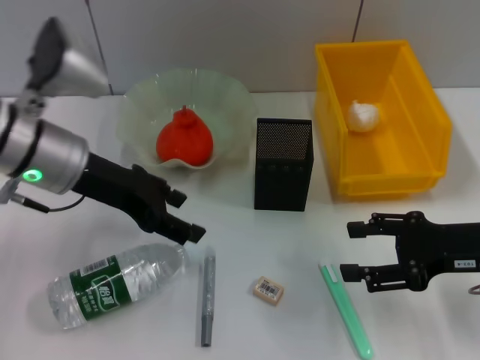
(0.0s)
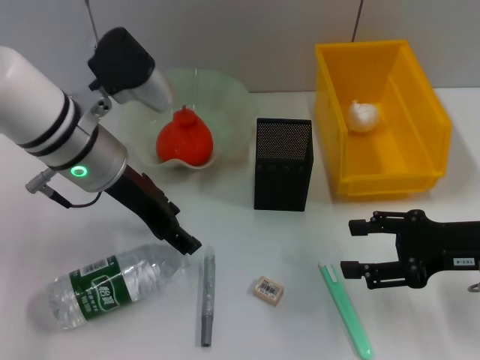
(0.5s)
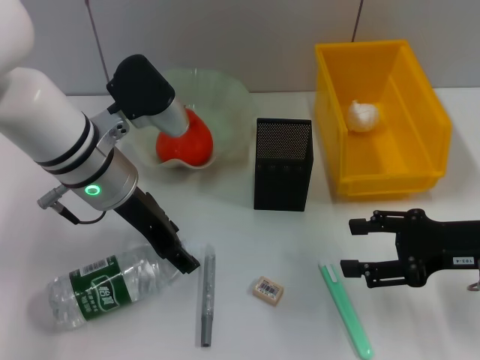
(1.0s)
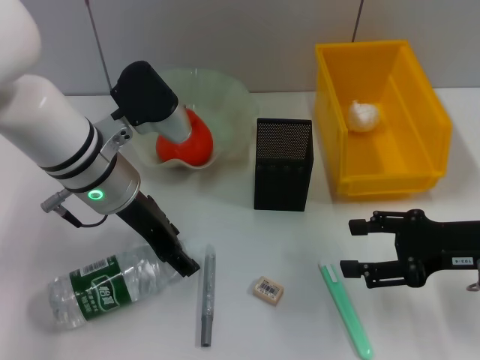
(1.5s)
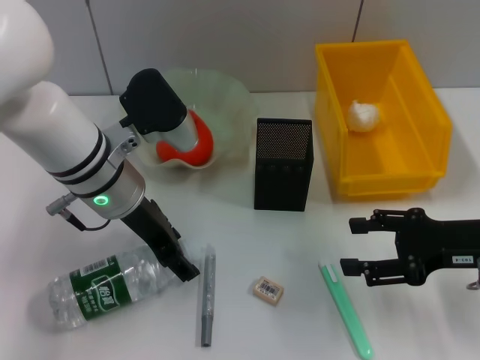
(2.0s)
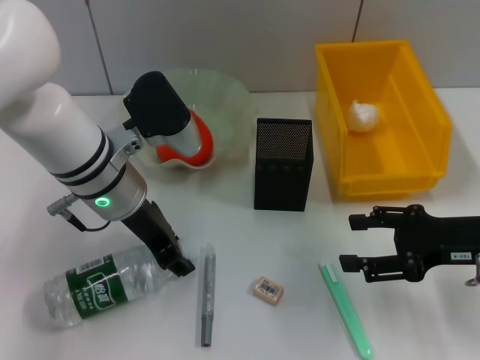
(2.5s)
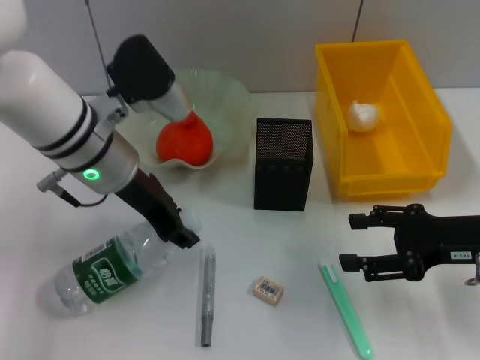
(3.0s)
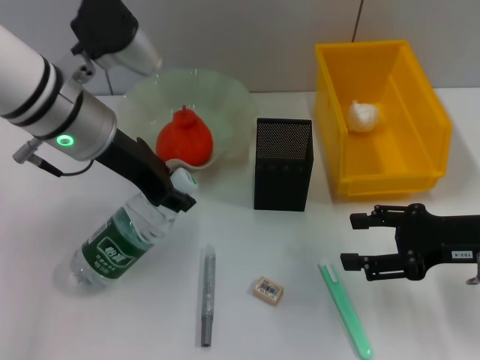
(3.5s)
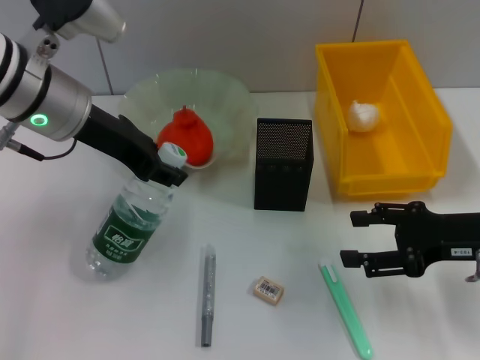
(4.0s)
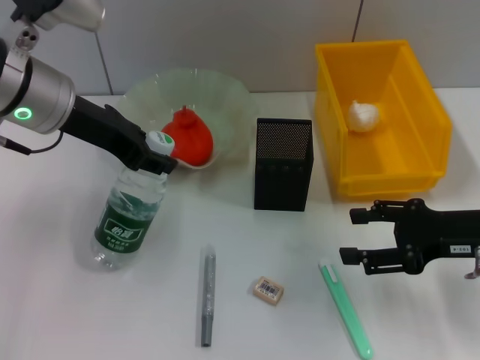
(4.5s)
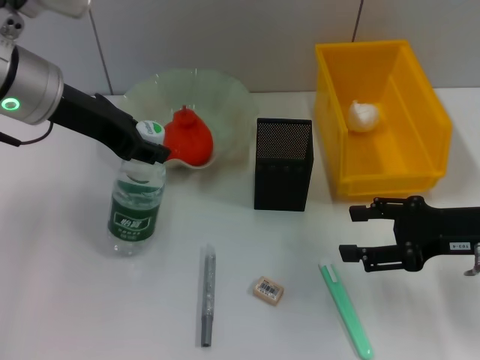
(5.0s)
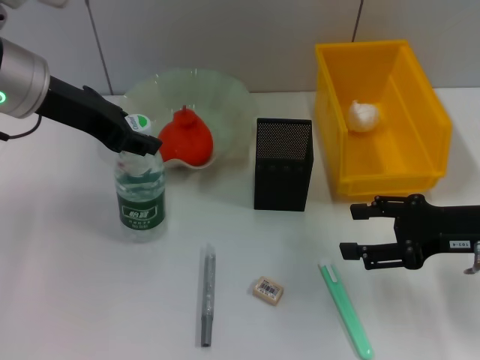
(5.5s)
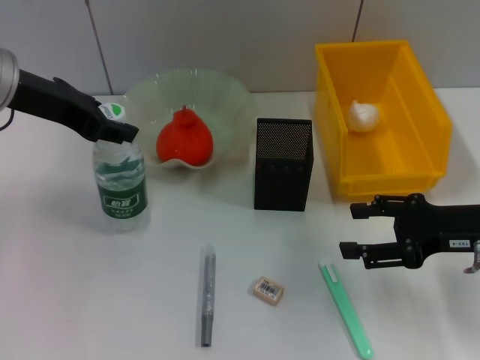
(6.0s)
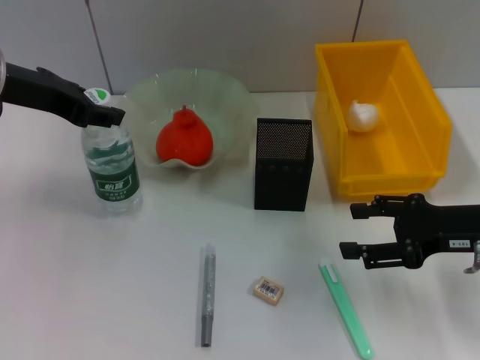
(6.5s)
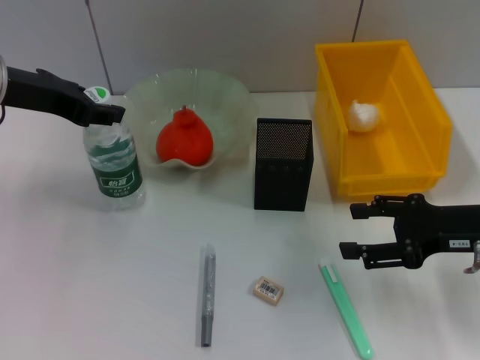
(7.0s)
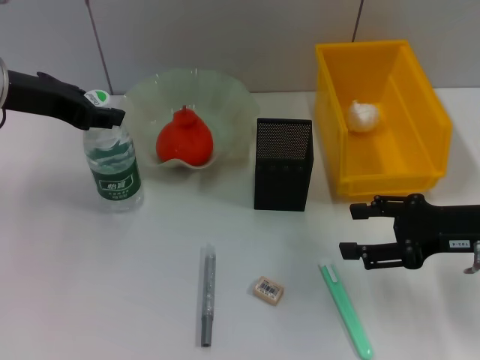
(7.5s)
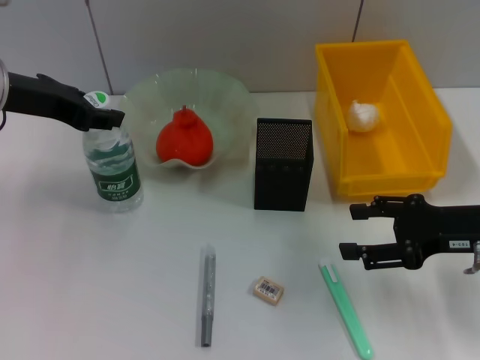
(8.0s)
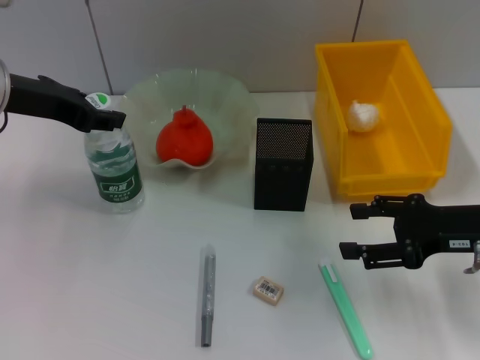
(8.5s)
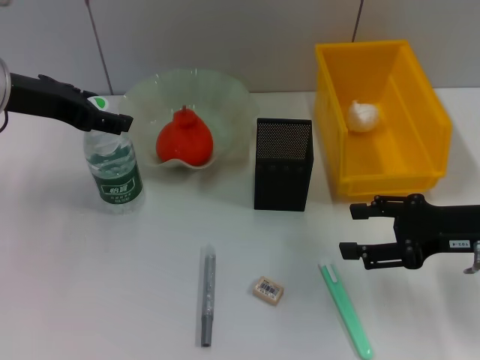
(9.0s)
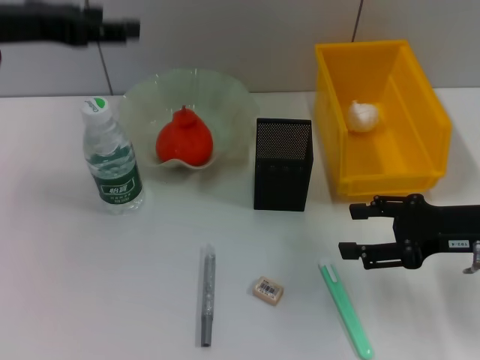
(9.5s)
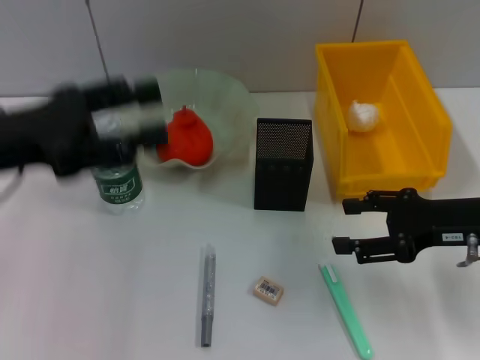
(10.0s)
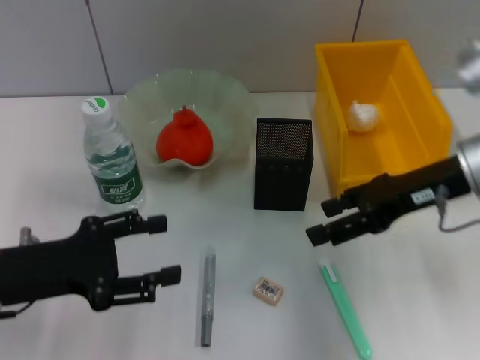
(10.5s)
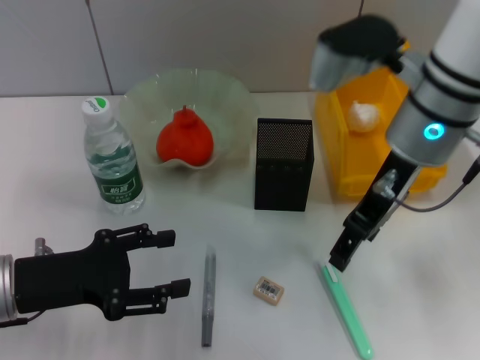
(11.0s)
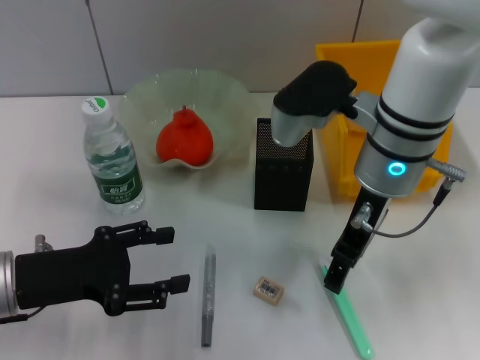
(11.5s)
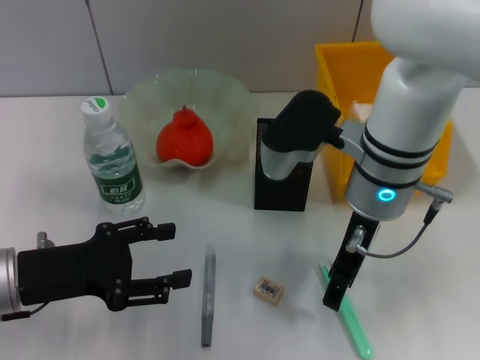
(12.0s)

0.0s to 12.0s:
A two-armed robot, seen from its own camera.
Step, 0.0s to 2.5s: Grab the water bottle with the left hand.
Step, 3.0s to 8.5s: Place the water bottle on the table with the left hand.
0.0s to 2.0s: The left gripper travels to the right by roughly 10 cm.
2.0s to 4.0s: The left gripper travels upward by some 10 cm, and closes.
4.0s to 6.0s: The left gripper moves to the left, roughly 5 cm.
6.0s to 8.0s: The grippers make only small movements.
8.0s to 10.0s: The left gripper goes roughly 10 cm backward, and opens.
10.0s to 12.0s: The left gripper moves downward, approximately 10 cm, while the right gripper moves to the left, approximately 15 cm.

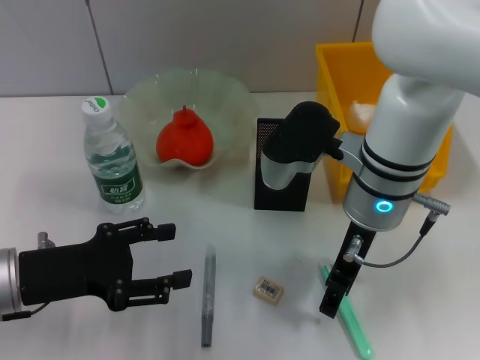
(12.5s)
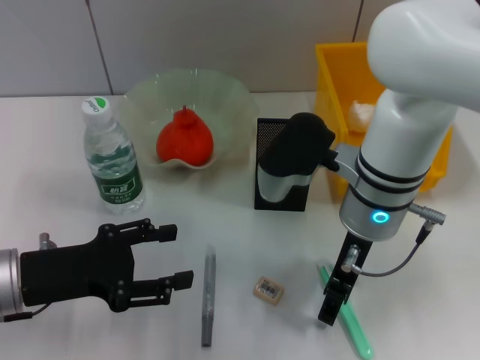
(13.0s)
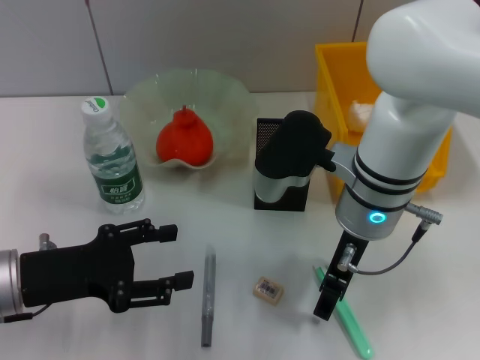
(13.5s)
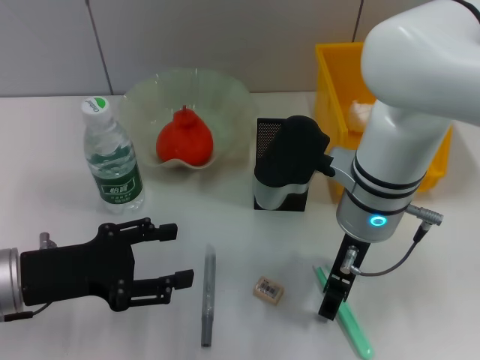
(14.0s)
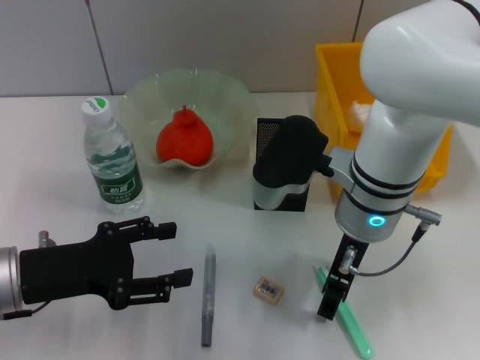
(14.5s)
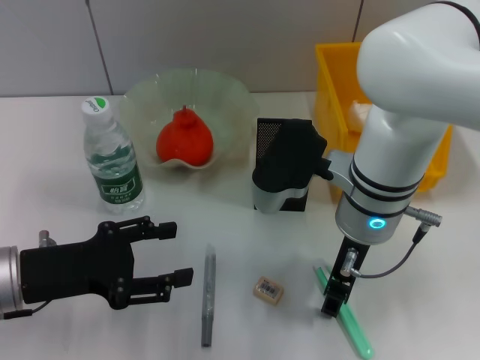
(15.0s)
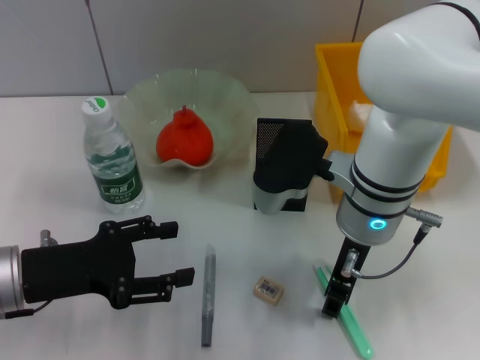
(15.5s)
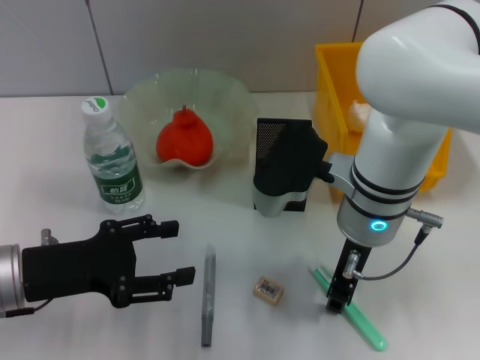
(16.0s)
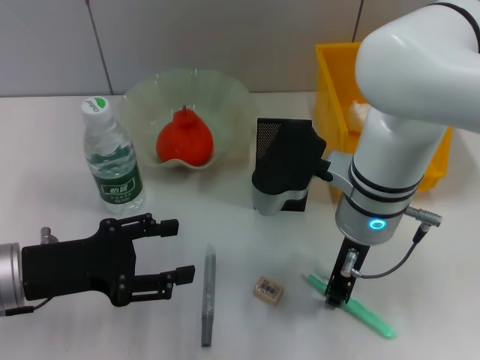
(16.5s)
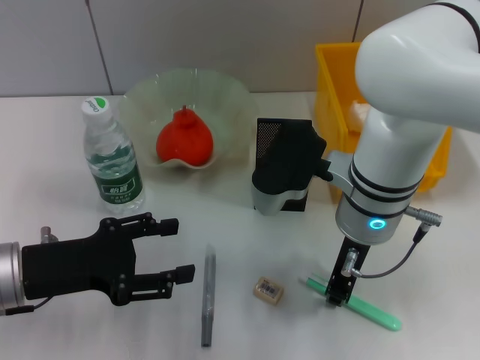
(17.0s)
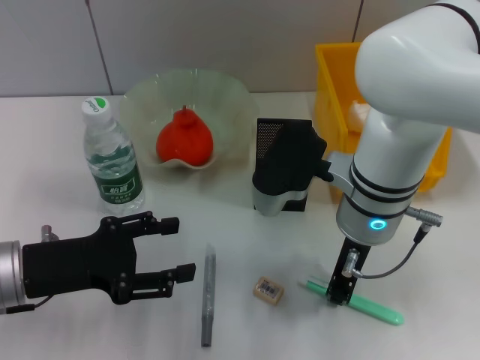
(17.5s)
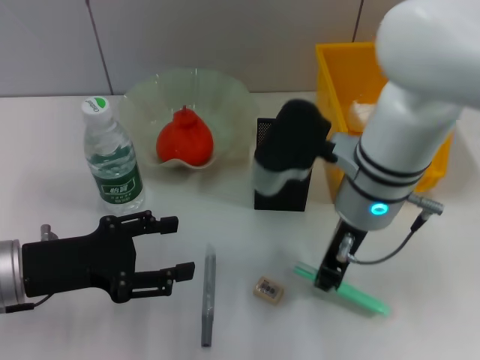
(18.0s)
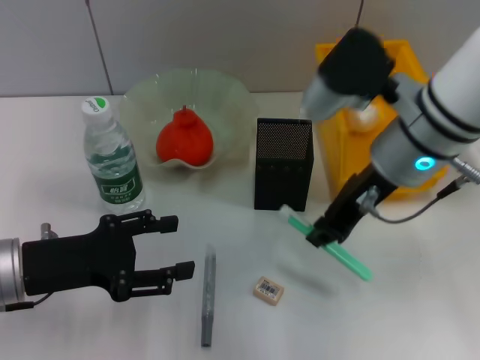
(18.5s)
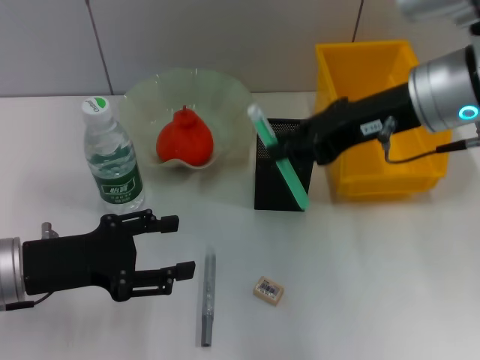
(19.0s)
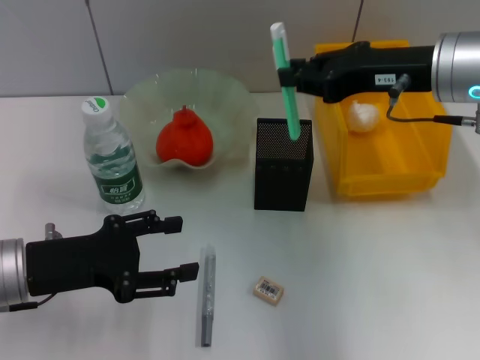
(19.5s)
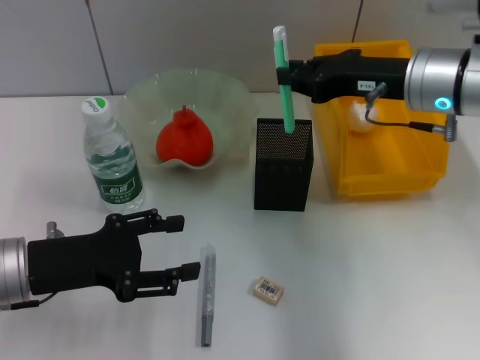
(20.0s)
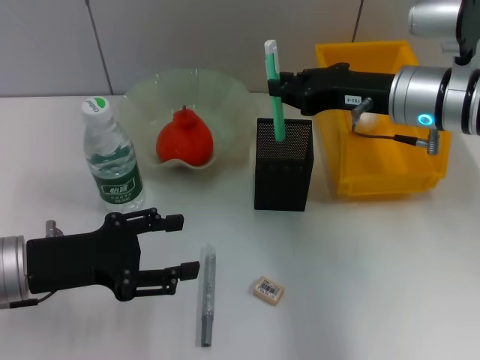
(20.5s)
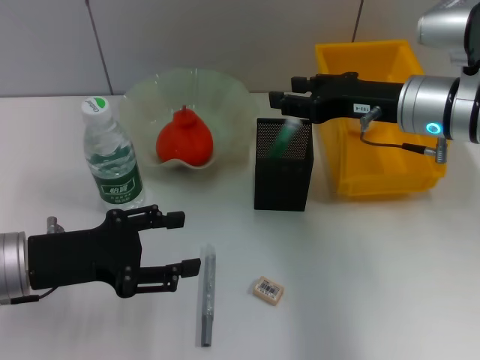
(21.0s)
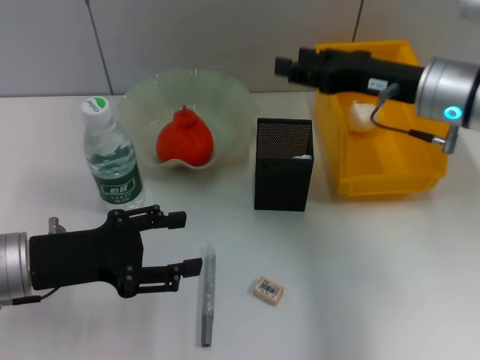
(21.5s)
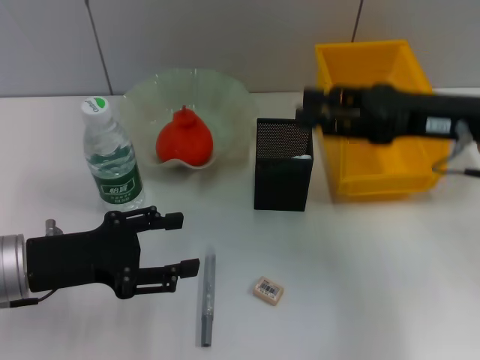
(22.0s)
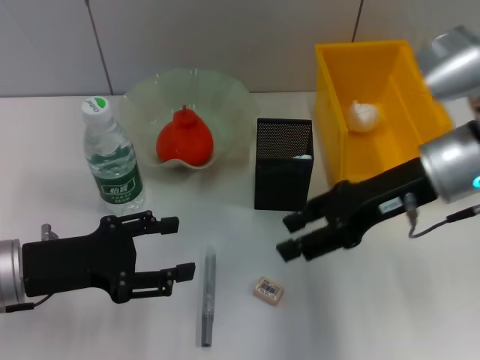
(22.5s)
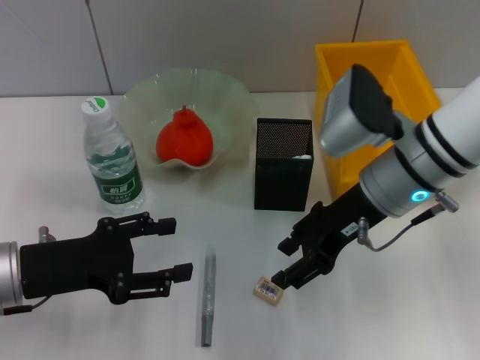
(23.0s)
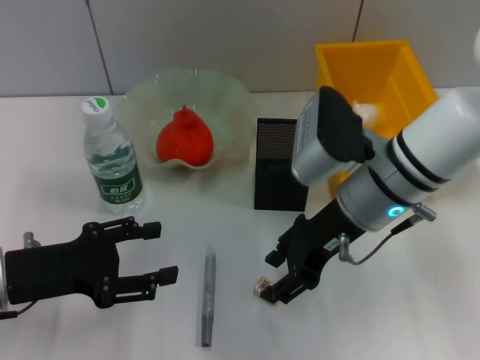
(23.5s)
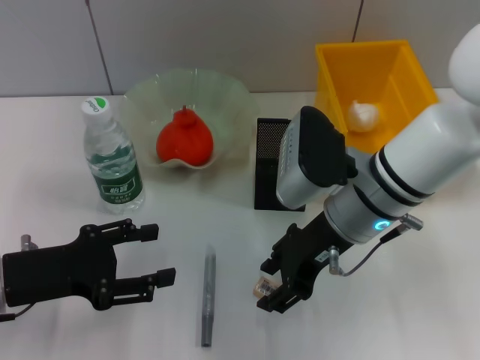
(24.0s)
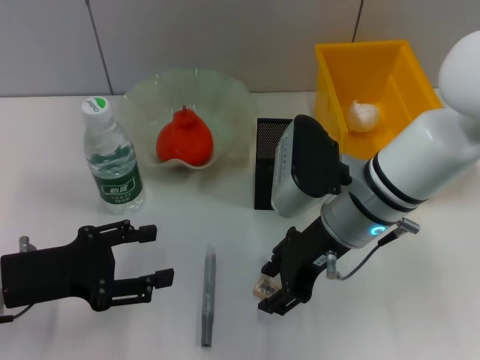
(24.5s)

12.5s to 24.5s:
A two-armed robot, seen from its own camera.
Step, 12.5s to 17.5s: Grab the blue utility knife with the right hand.
Step, 18.0s to 21.0s: Place the blue utility knife into the pen holder with the right hand.
12.5s to 14.5s: The grippers make only small movements.
14.5s to 16.5s: The right gripper closes.
16.5s to 18.5s: The right gripper shifts some 5 cm upward.
18.5s to 20.5s: The right gripper ends up approximately 10 cm from where it was.
20.5s to 22.5s: The right gripper opens up.
22.5s to 24.5s: The right gripper moves to the left, about 10 cm.

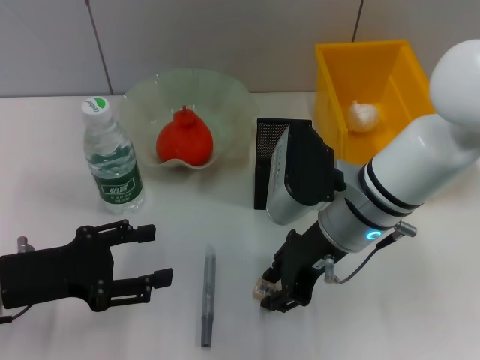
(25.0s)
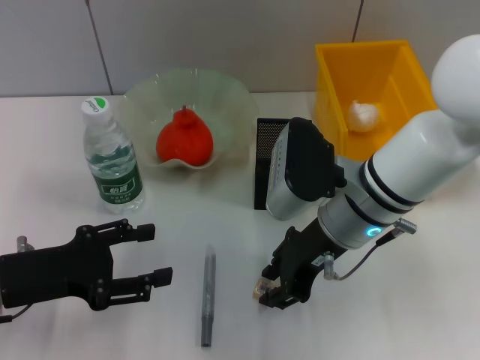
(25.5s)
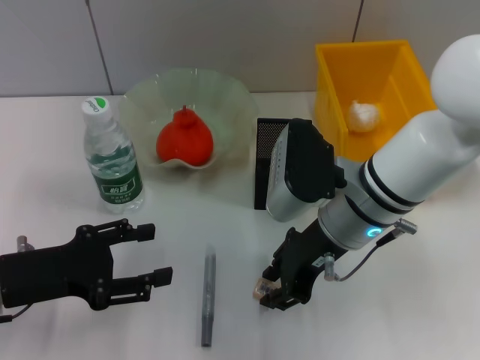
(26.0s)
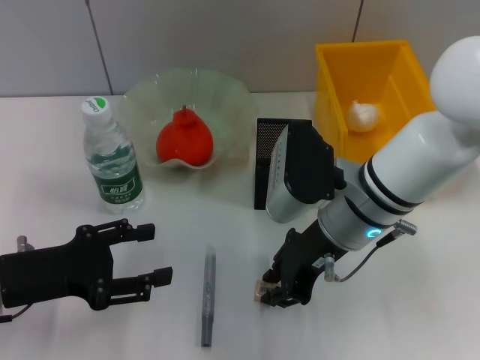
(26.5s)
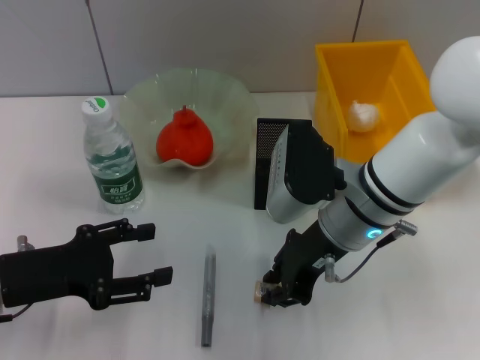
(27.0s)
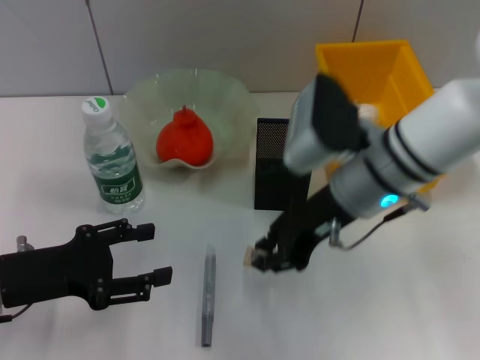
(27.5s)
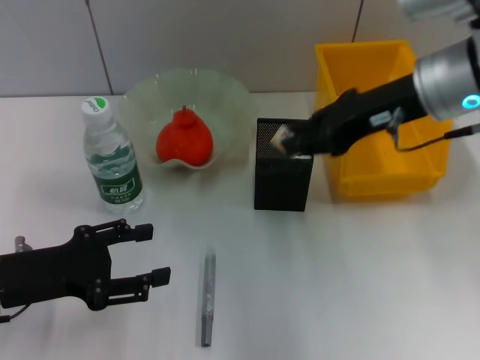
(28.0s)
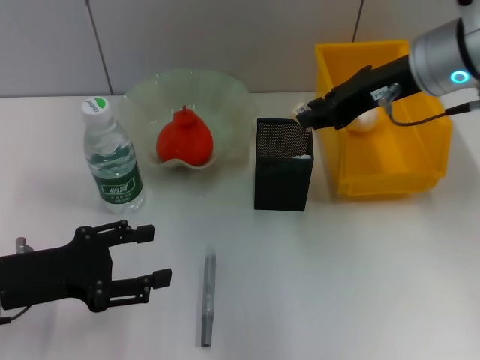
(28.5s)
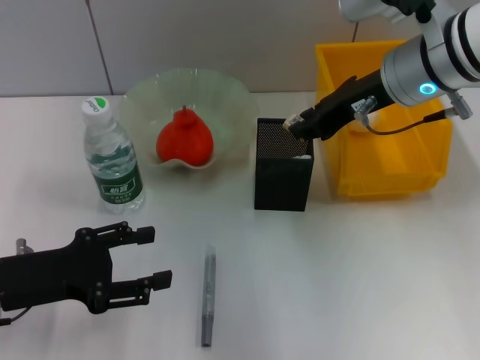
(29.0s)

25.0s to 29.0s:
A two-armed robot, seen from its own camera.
25.0s to 27.0s: The right gripper closes up.
27.0s to 29.0s: The right gripper heads upward, forward and to the right, covering about 15 cm.
